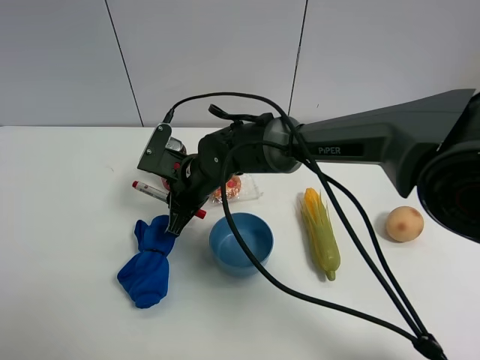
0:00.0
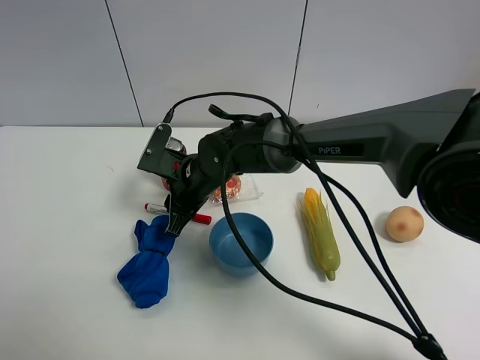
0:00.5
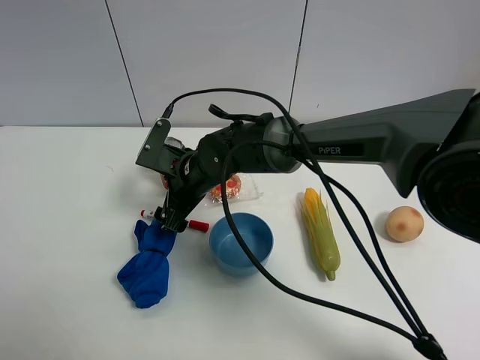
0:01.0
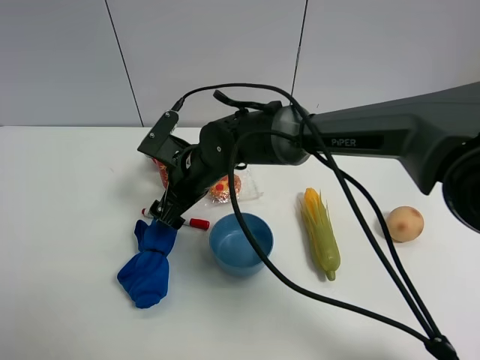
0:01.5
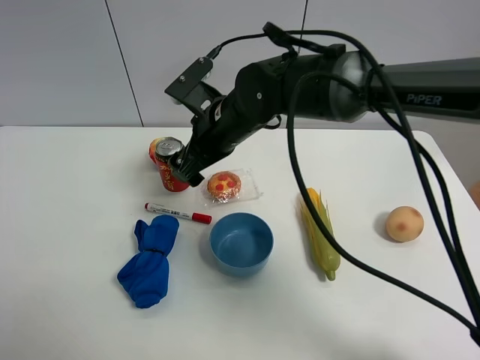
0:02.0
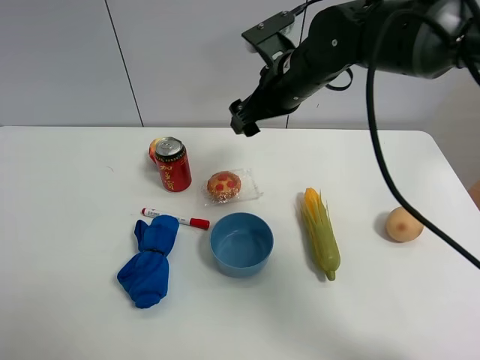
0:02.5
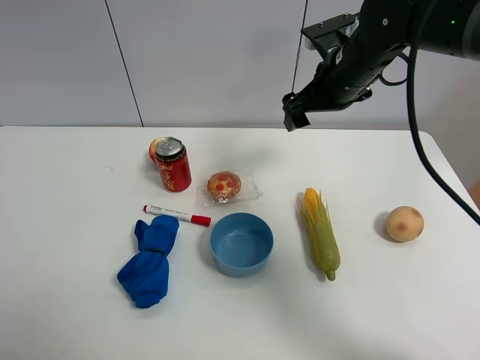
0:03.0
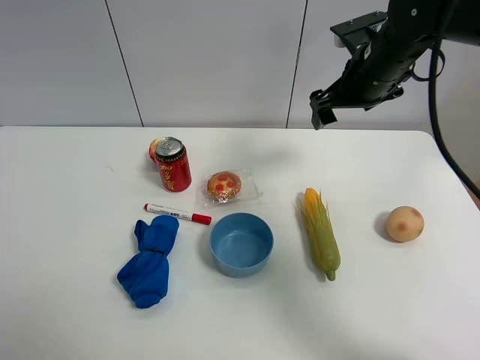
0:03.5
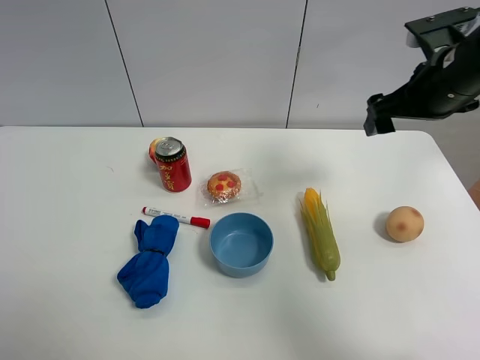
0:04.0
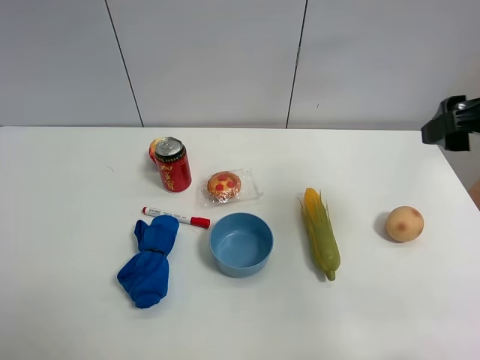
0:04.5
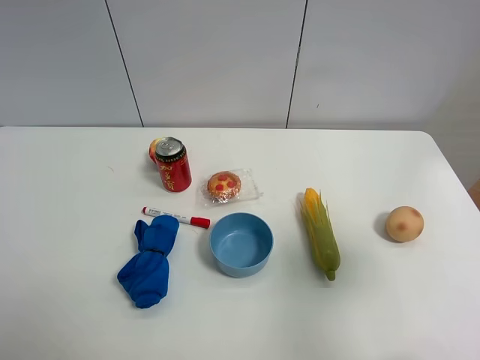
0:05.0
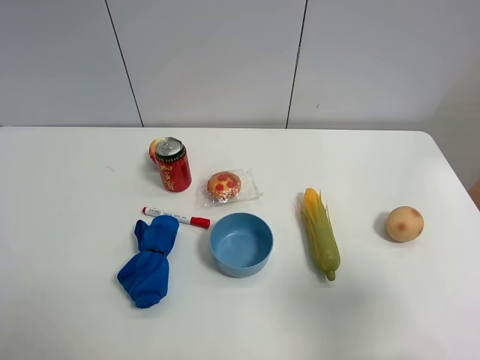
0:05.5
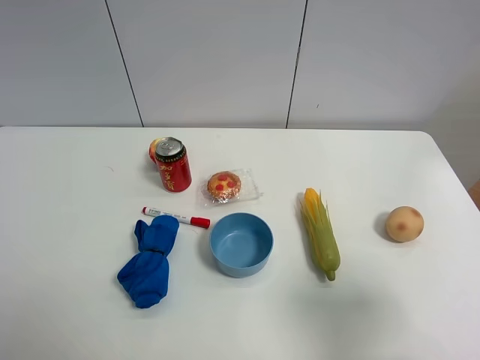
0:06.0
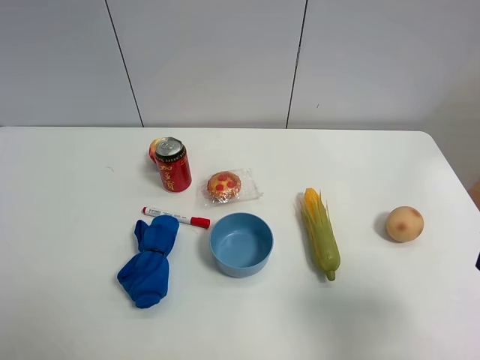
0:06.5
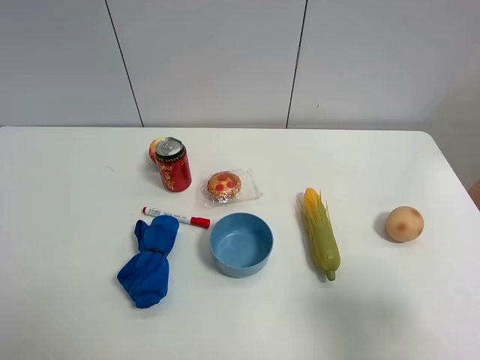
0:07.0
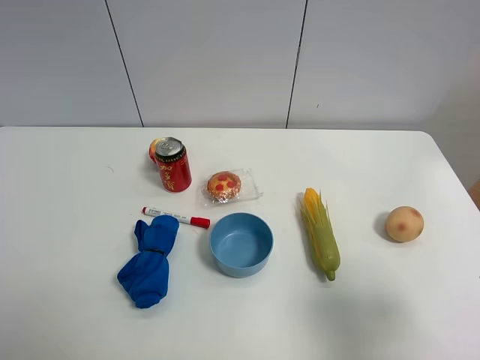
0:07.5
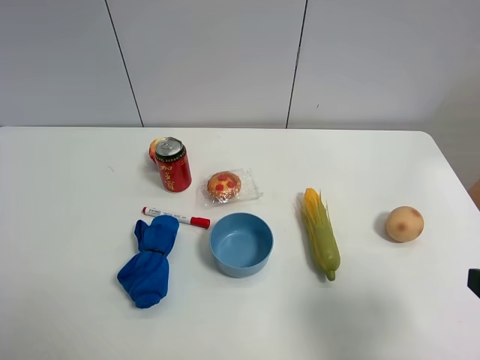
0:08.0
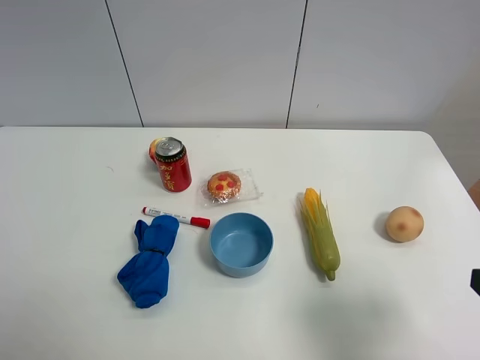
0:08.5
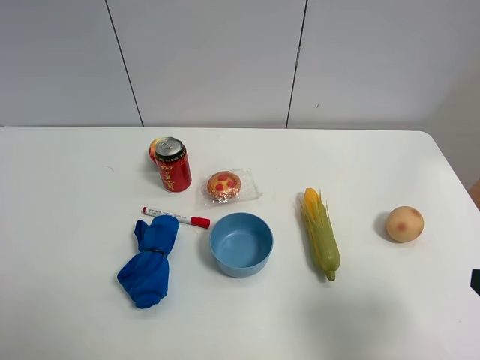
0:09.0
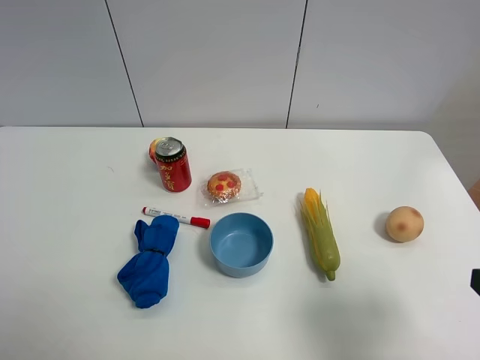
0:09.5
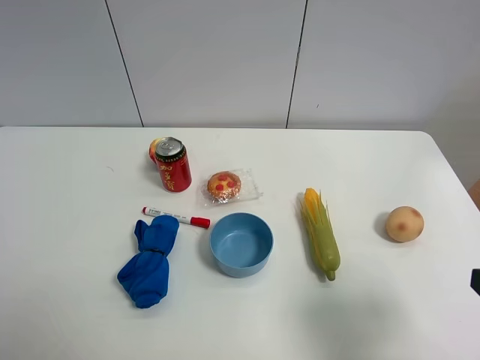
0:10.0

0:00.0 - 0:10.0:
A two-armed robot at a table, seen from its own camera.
Task of the whole recording: the gripper move the object.
0:00.0 - 0:02.0: The right gripper is displaced upward and to the right by about 10 cm, and opens its fingers.
0:02.0 - 0:04.0: The right gripper heads to the right, covering some 25 cm.
0:04.0 - 0:06.0: The right gripper is displaced backward by about 30 cm.
0:08.0 - 0:10.0: Both grippers stay about where they are.

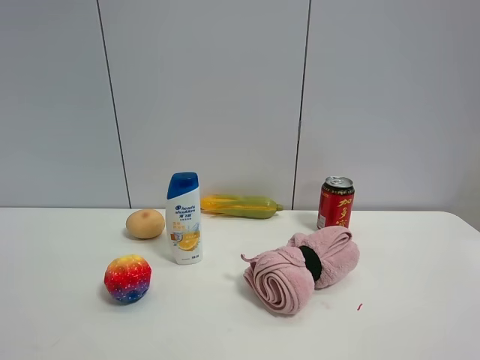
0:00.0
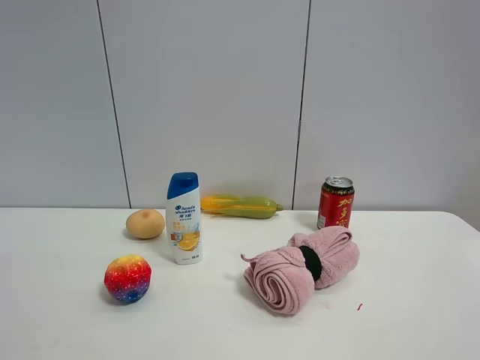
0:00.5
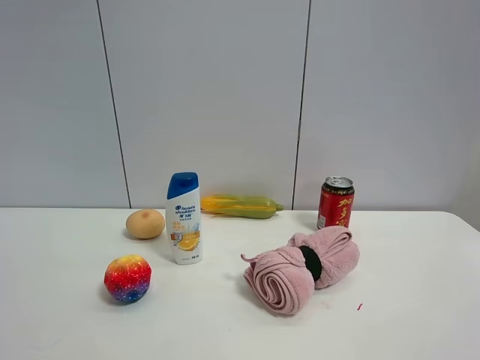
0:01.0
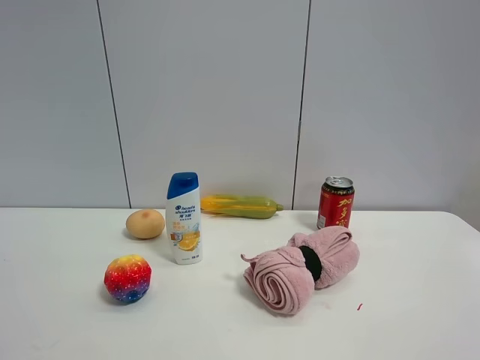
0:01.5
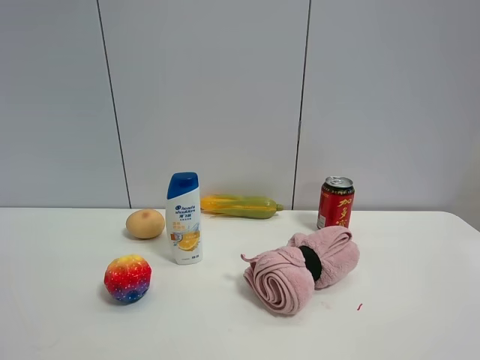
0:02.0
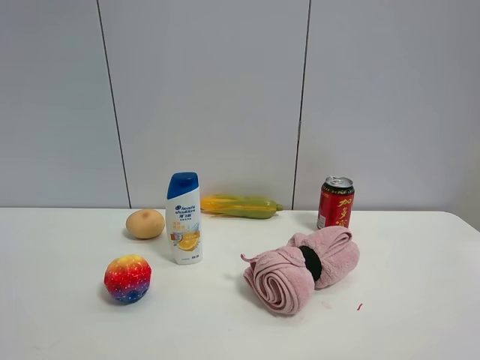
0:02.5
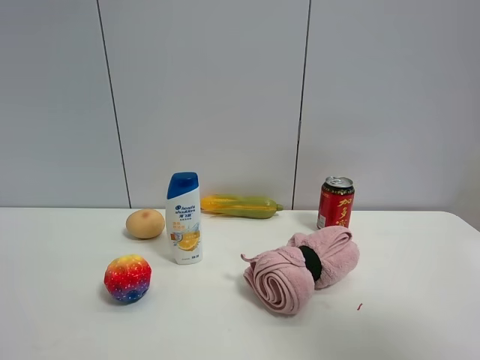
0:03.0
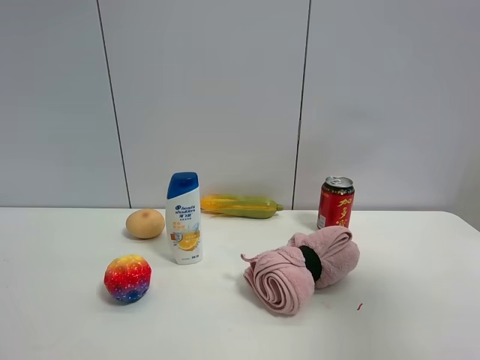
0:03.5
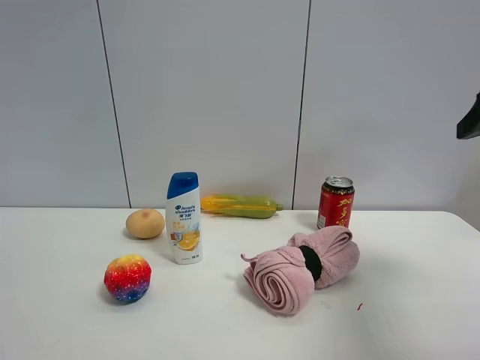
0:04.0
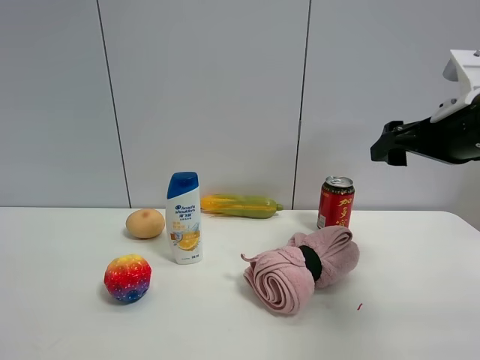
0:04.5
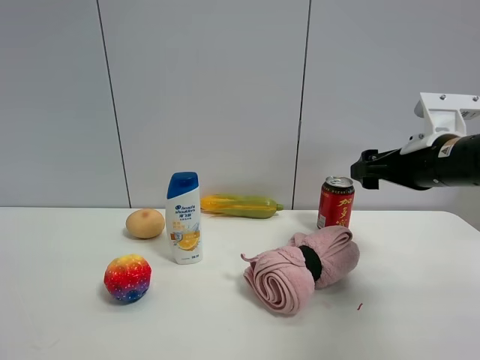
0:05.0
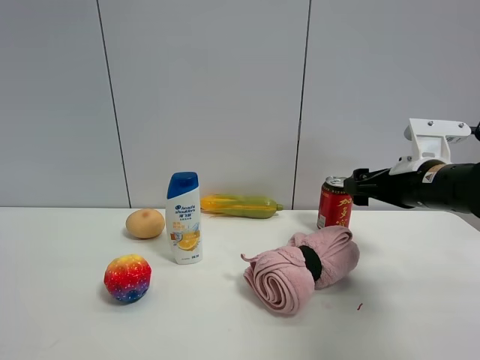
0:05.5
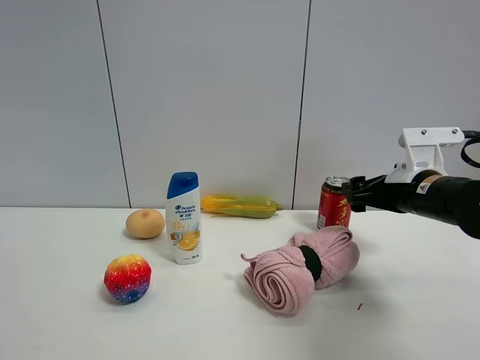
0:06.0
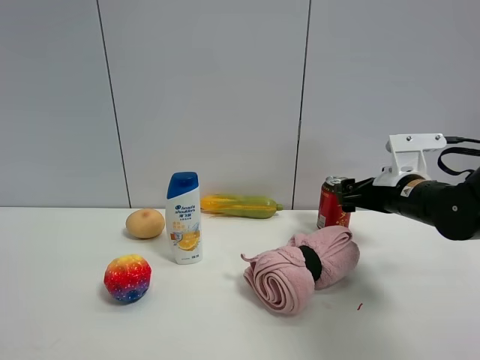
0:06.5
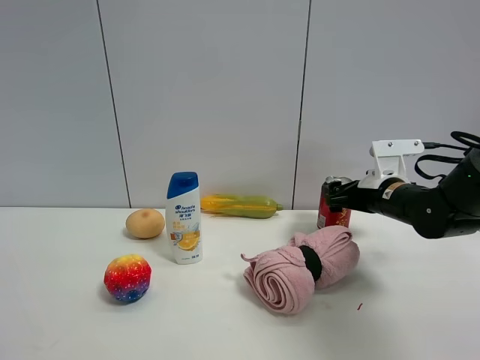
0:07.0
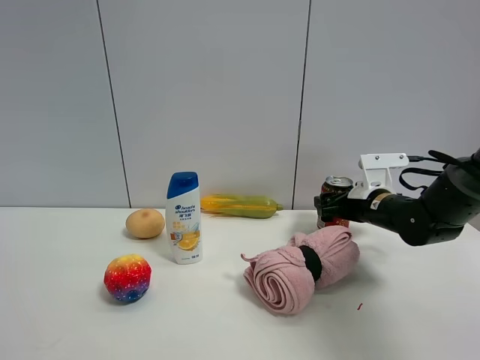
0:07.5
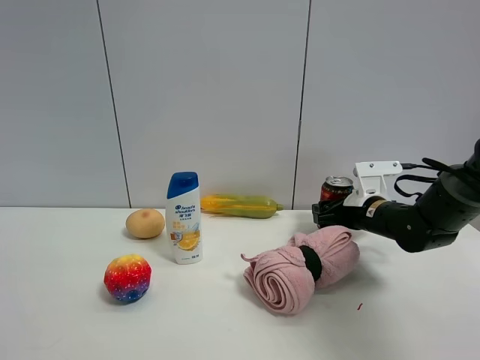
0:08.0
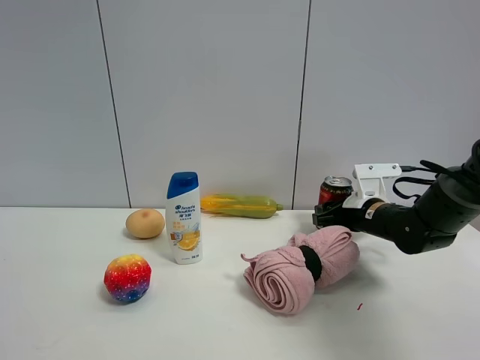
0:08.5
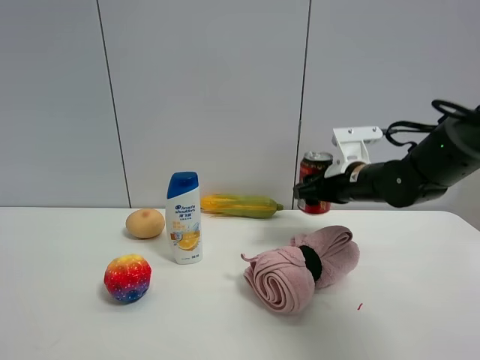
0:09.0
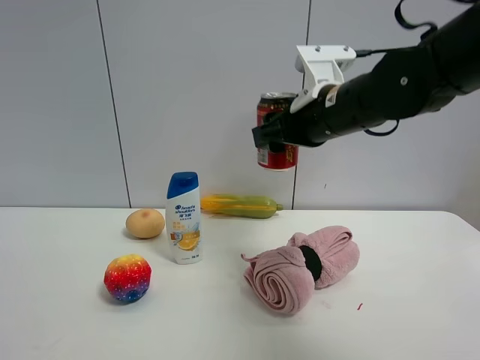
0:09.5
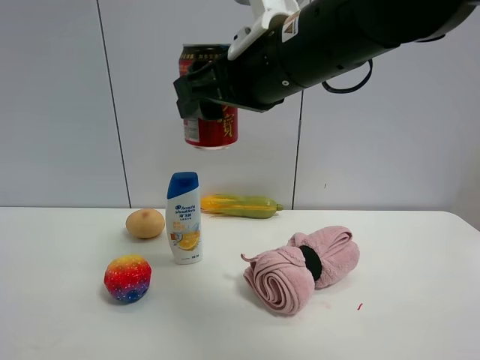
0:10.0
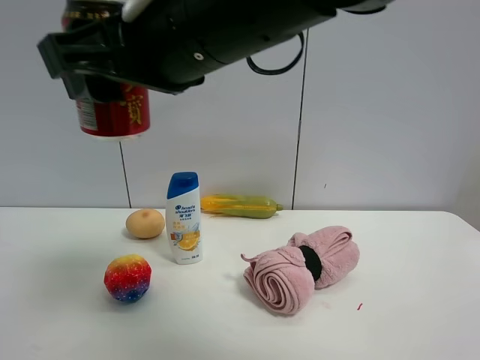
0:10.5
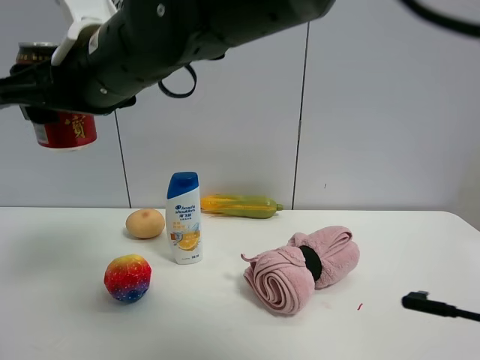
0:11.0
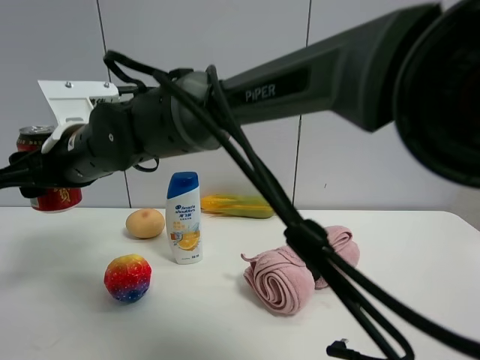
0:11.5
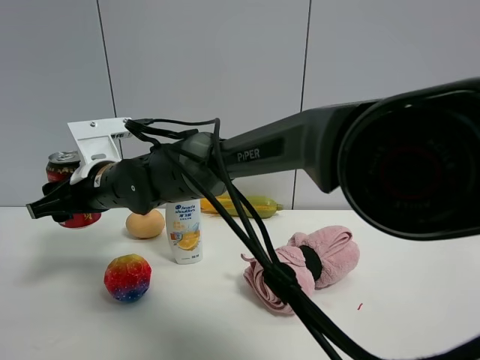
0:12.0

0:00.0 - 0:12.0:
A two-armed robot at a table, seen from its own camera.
Task of the whole recording: the gripper move the object.
Step, 0:00.0 - 0:08.5: Grasp the Jia Duo Bao with the right gripper.
0:00.0 - 0:02.0: Both grippers stay put.
0:02.0 - 0:04.0: The right gripper shifts approximately 25 cm forward.
0:04.0 - 0:06.0: The right gripper travels downward and forward by roughly 20 cm.
0:06.0 - 0:08.0: The right gripper moves forward and downward, approximately 10 cm, and closes.
0:08.0 - 0:10.0: The right gripper is displaced upward, to the left and backward by some 35 cm.
0:10.0 - 0:12.0: The right gripper goes approximately 25 cm to the left, downward and forward.

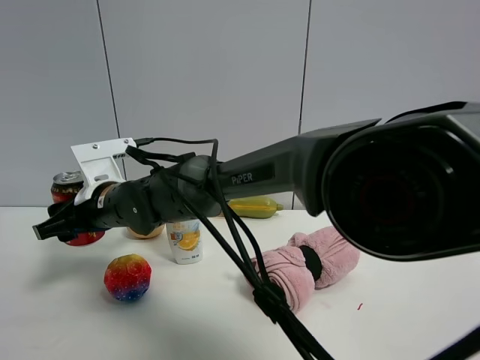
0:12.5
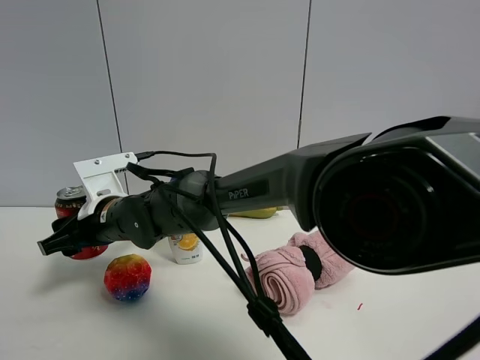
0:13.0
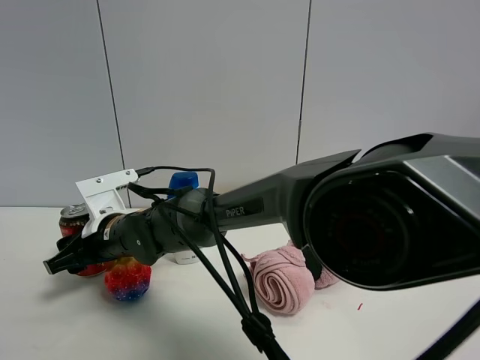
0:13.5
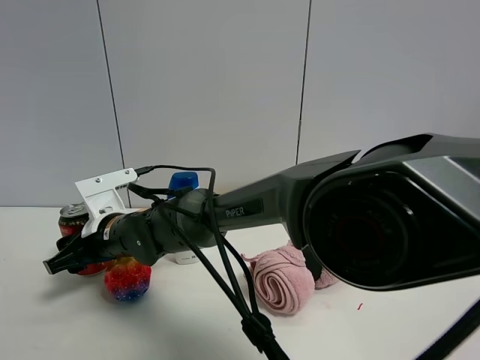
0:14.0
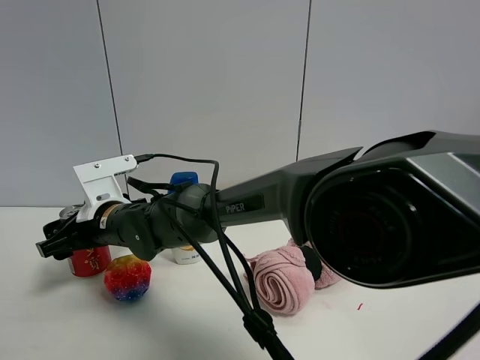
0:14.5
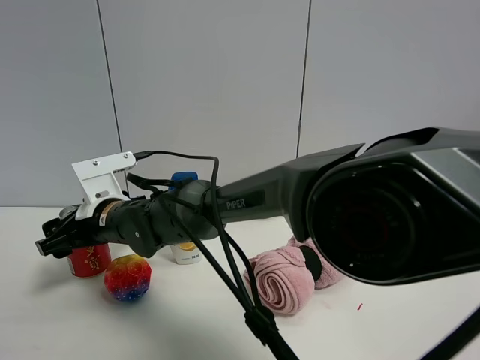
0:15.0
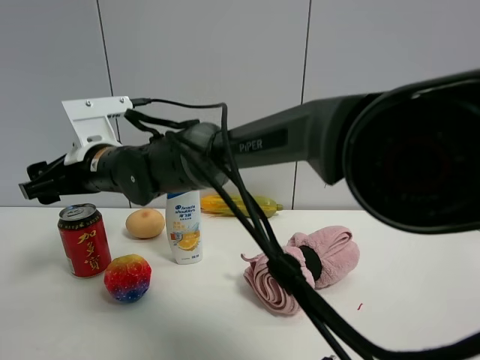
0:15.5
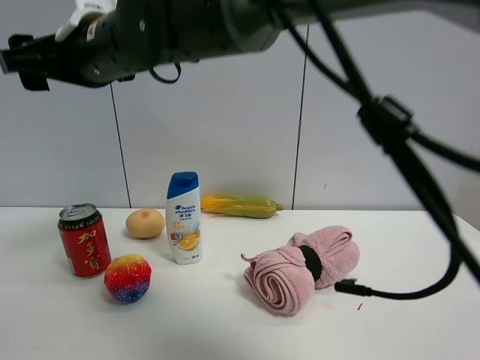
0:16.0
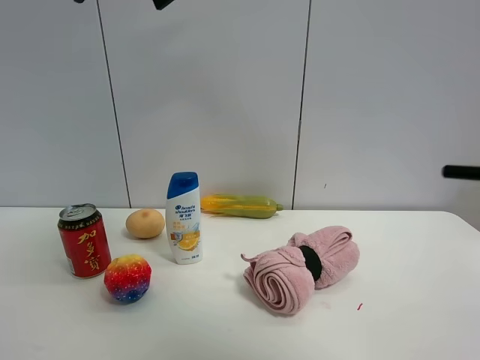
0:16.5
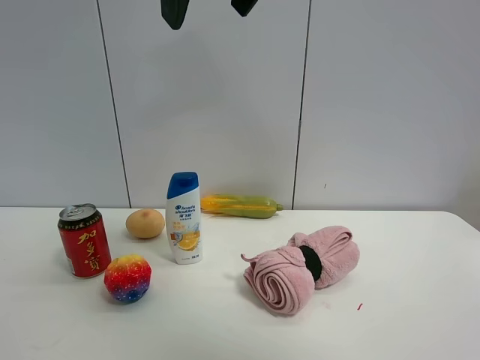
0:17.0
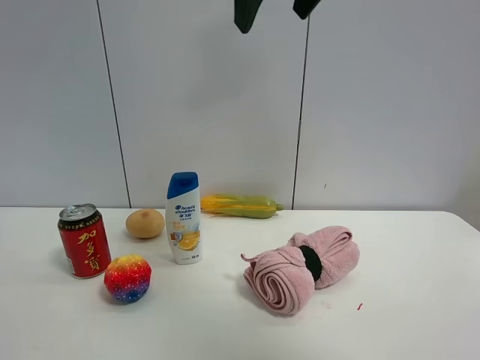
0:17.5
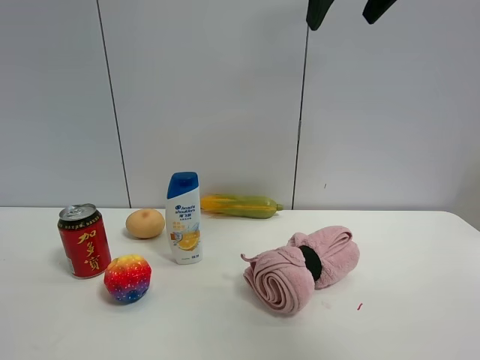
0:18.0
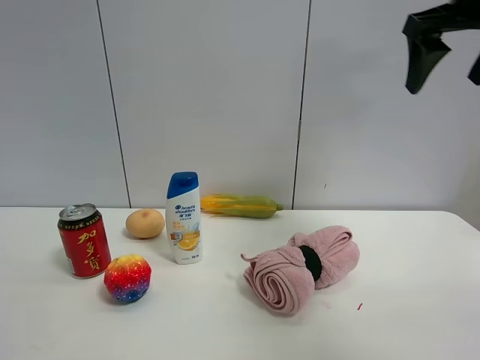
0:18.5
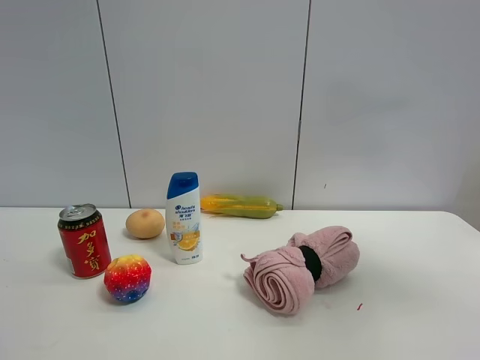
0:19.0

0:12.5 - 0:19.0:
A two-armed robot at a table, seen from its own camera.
Task of the whole recording: the gripper move the object.
Step, 0:12.5 - 0:15.5: Place the Jia Duo Bao on the table with the right gripper.
0:12.5 - 0:14.5: The right gripper opens.
0:14.5 - 0:17.0: The right gripper goes about 40 cm upward and to the right.
0:17.0 - 0:19.0: The right gripper goes some 35 cm to the right.
